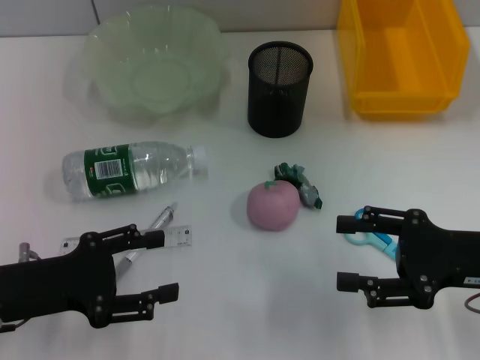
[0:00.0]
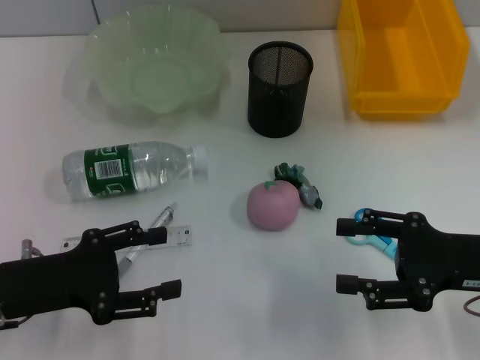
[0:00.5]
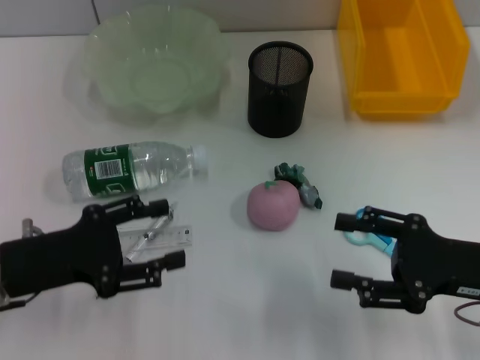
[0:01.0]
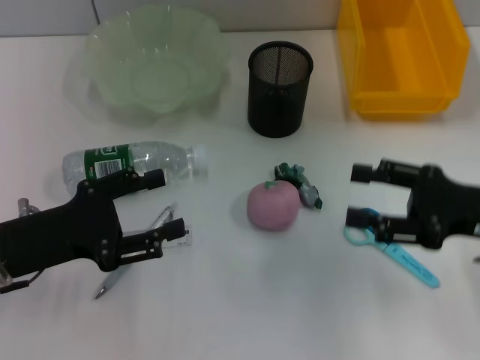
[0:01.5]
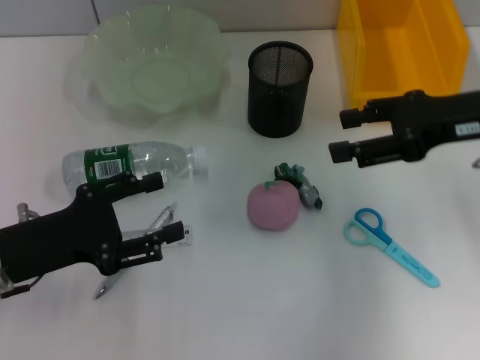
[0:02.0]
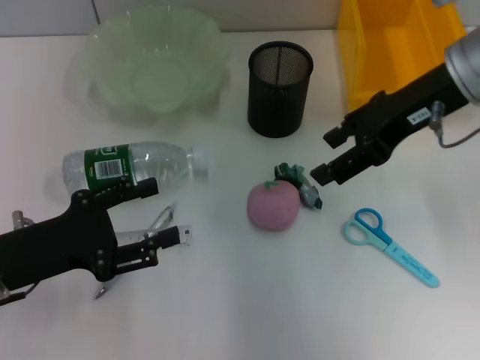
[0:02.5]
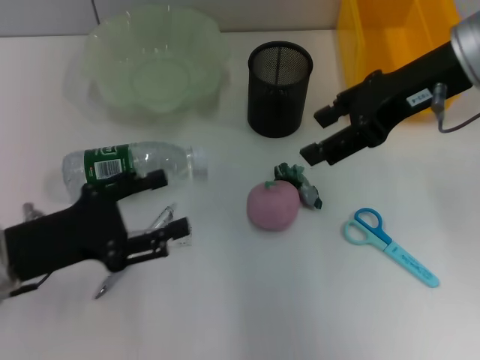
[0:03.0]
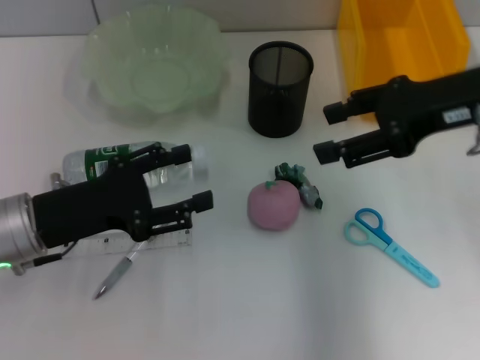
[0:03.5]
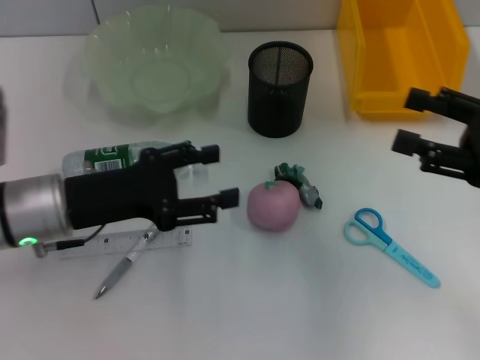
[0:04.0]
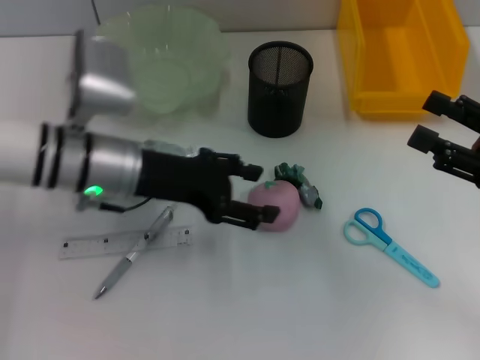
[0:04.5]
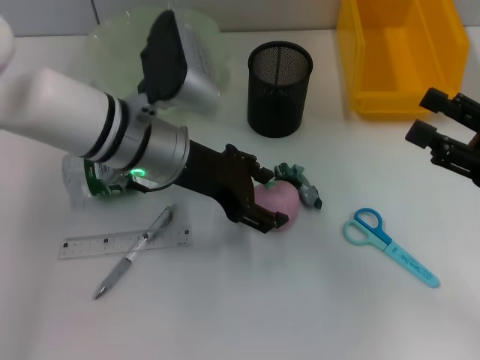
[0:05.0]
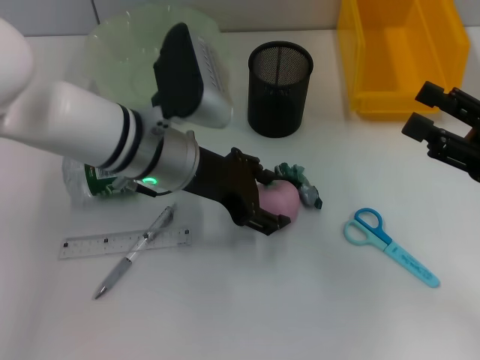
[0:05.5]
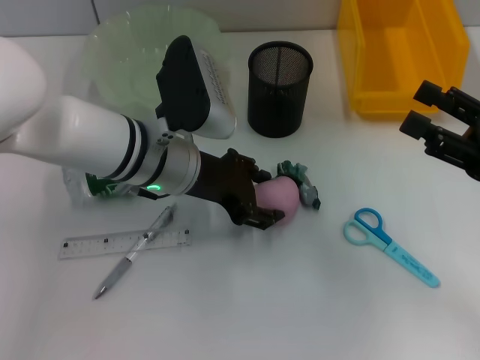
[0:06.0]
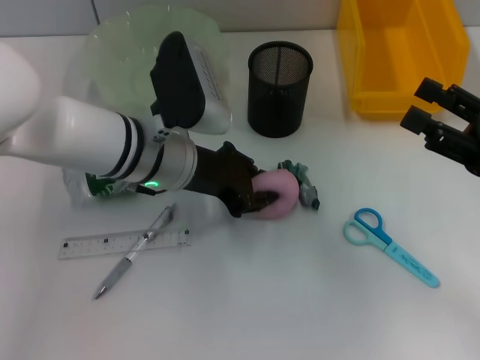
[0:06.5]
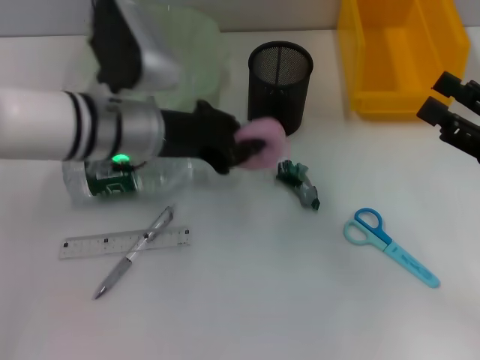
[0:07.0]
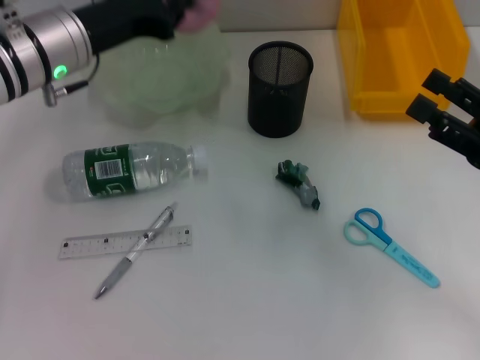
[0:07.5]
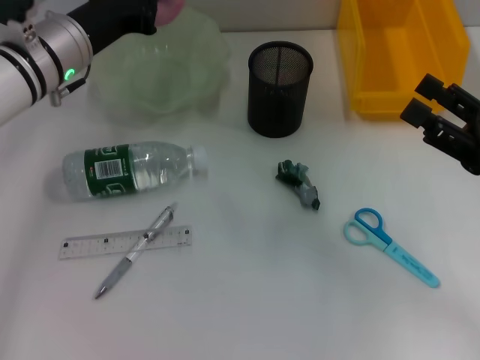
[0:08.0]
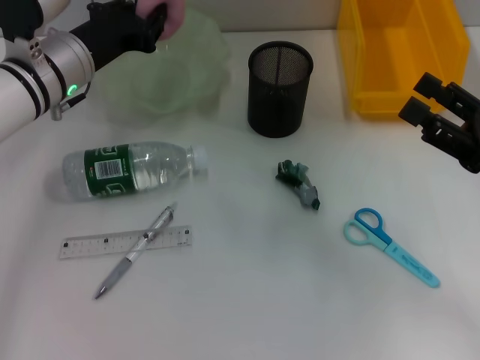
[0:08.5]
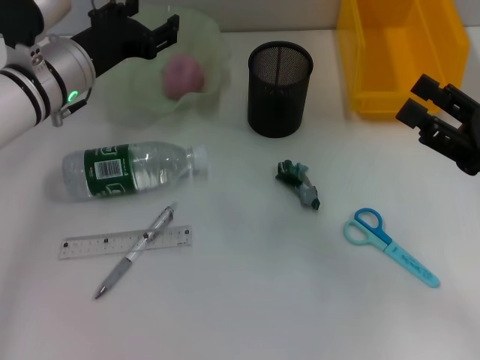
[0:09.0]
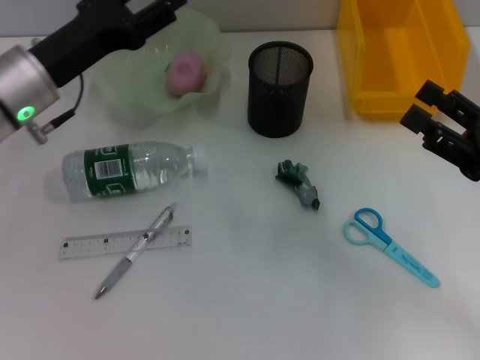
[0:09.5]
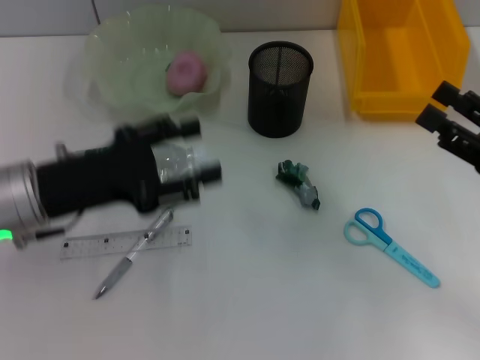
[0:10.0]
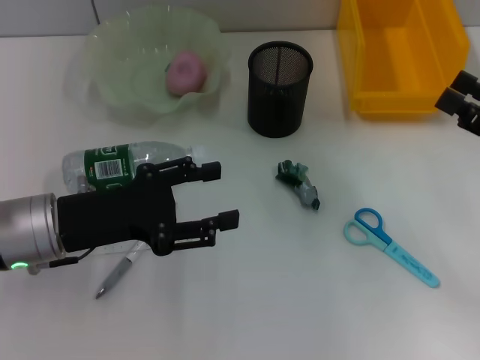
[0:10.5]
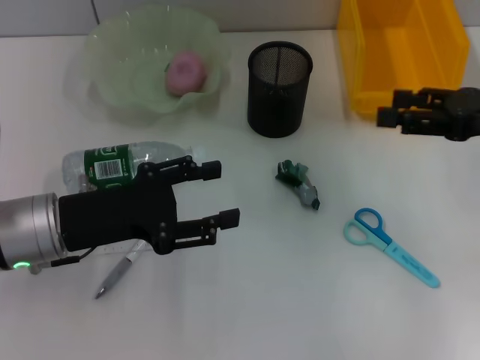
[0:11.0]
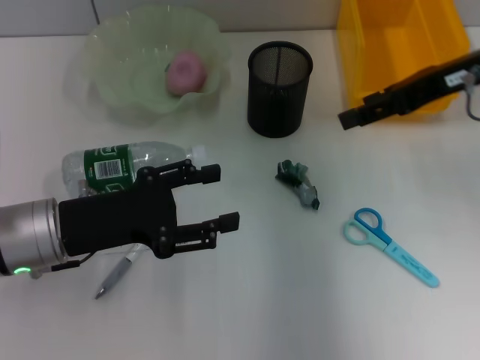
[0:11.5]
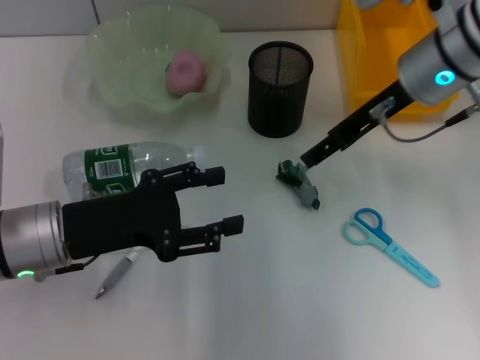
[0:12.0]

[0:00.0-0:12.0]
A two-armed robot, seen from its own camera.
Step, 0:00.0 to 0:06.0: Grab the peach with the left hand.
Step, 0:07.0 to 0:08.5: Place the peach into the fruit bowl with the left hand.
0:00.0 to 0:02.0: The right gripper goes about 15 cm upward and forward.
0:02.0 to 0:04.0: The left gripper travels forward by about 5 cm. Meanwhile the right gripper heads backward and to the right, covering roughly 10 cm.
0:04.0 to 0:06.0: The left gripper is displaced to the right and forward by about 15 cm.
0:06.0 to 0:08.0: The left gripper goes about 10 cm to the left and forward, and closes up.
0:08.0 to 0:10.0: The left gripper shifts about 15 cm backward, and opens.
0:10.0 to 0:12.0: The right gripper shifts roughly 25 cm forward, to the left and upward.

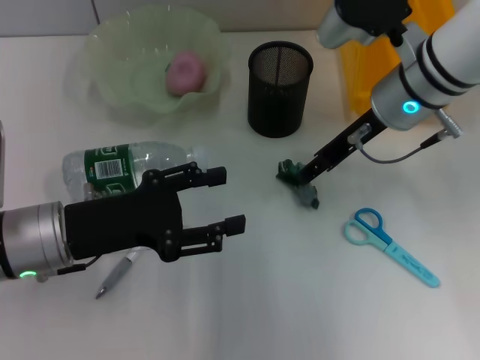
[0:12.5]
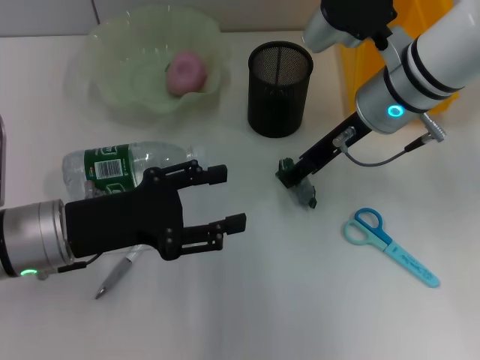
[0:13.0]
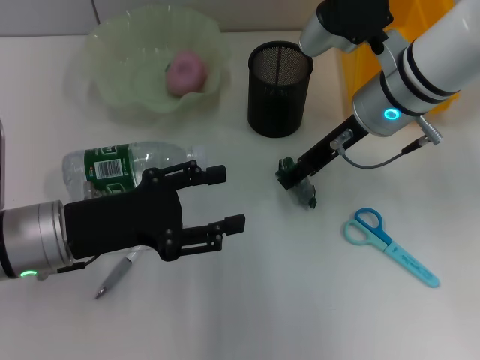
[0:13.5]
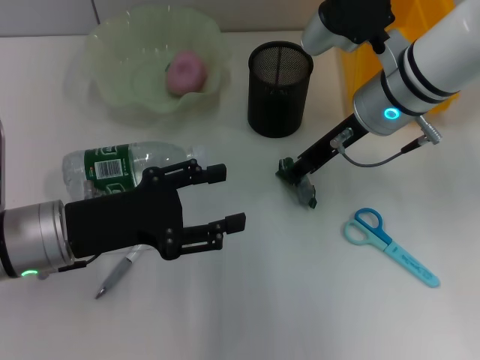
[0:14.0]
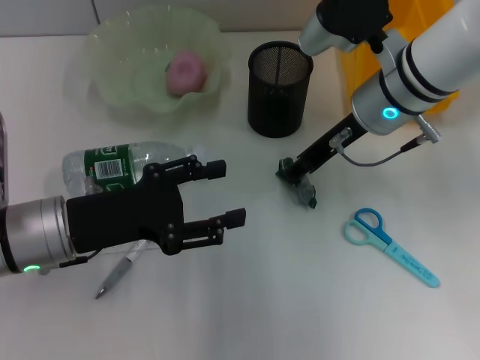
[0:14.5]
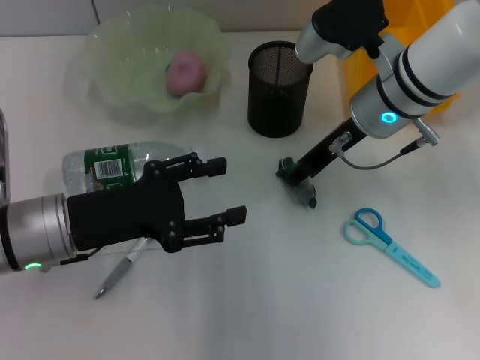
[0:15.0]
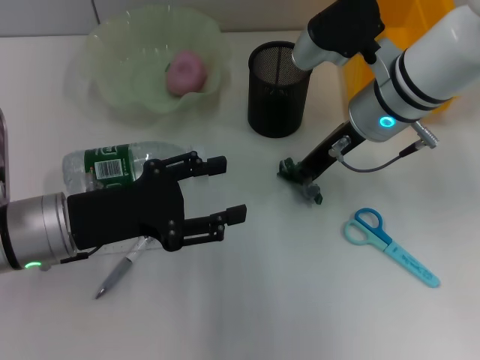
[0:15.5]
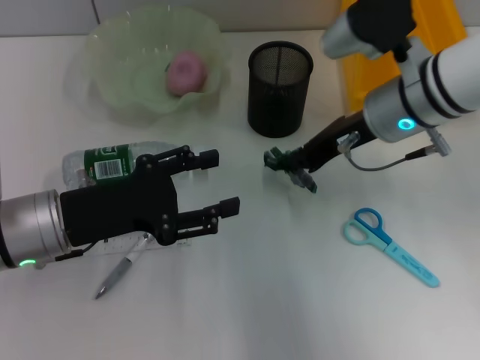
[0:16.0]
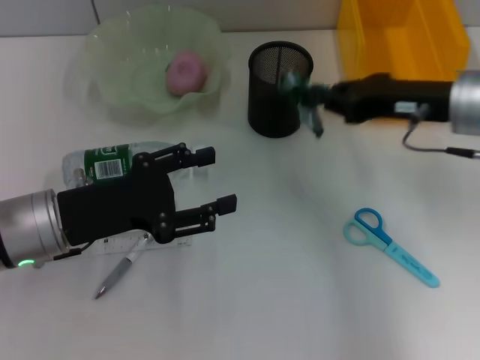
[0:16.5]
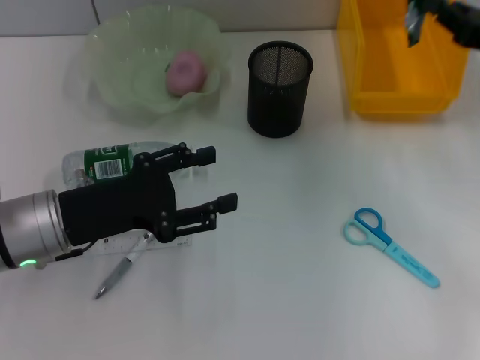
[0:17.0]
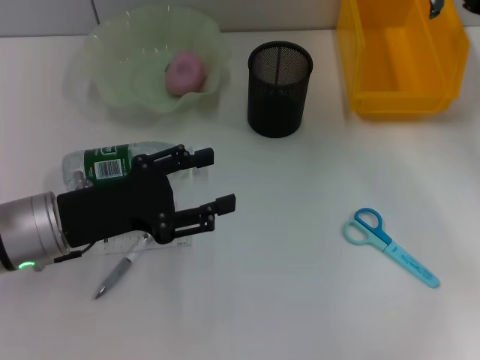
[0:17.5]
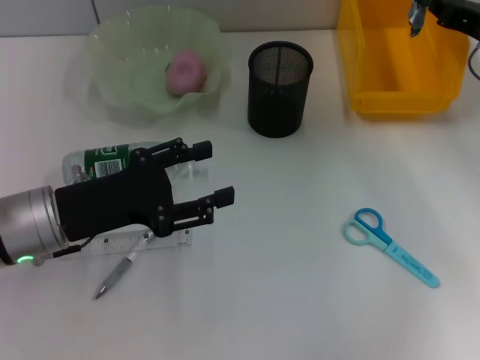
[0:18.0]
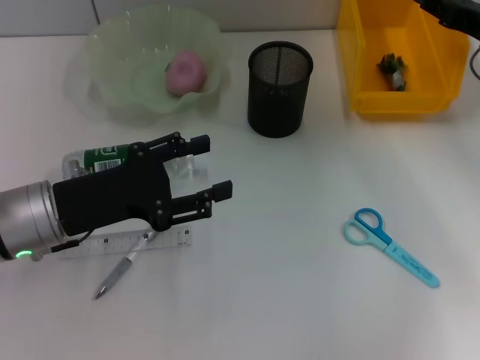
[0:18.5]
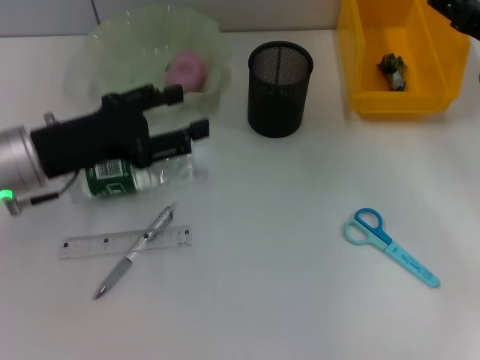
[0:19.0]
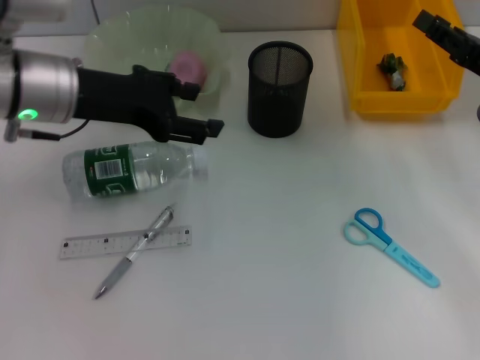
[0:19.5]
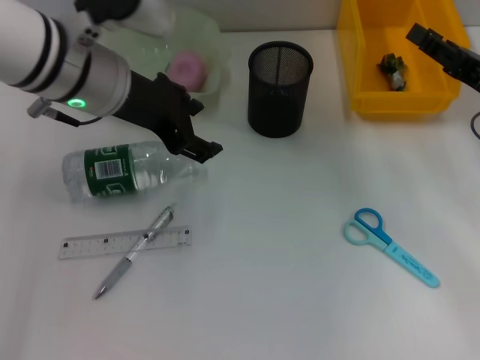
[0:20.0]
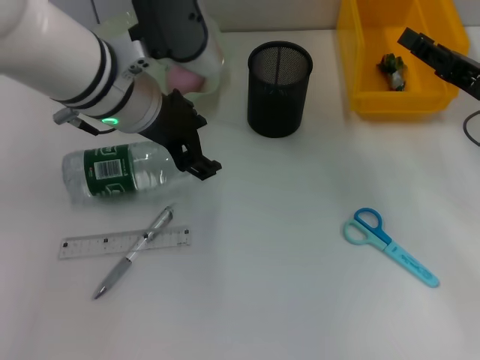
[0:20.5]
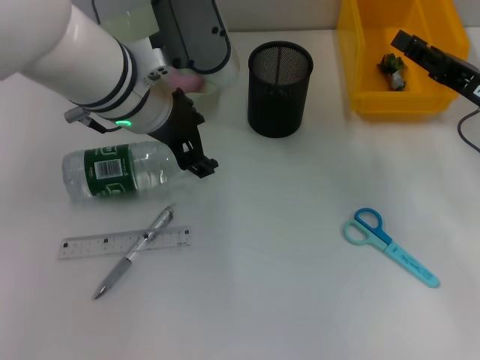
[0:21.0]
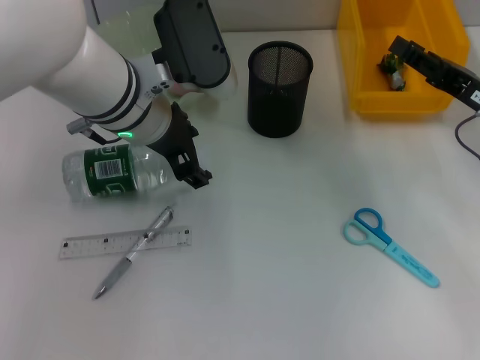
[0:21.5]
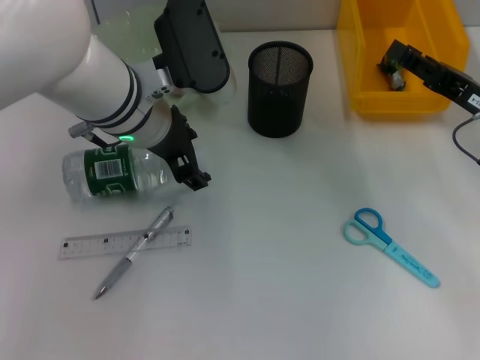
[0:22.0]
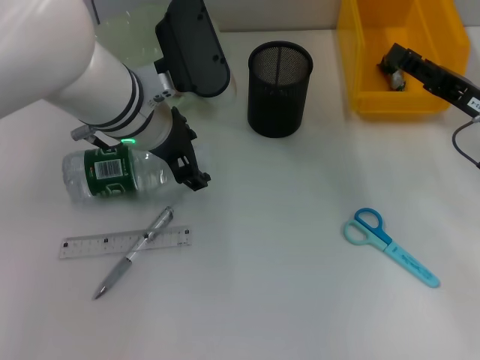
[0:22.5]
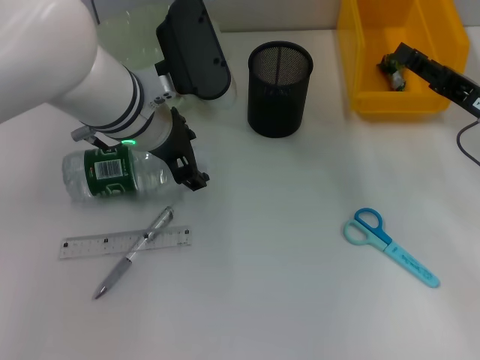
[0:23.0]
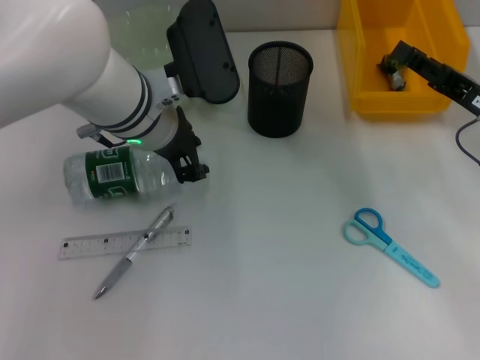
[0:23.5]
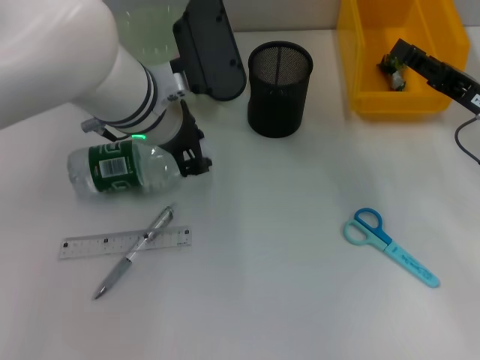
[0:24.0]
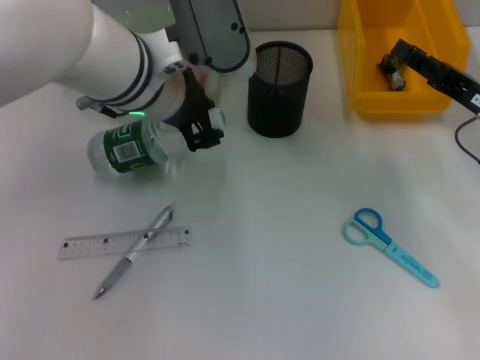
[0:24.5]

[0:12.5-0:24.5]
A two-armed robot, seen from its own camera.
Step, 0:12.5 to 0:15.5: Grab the plastic with the right hand.
Step, 0:16.0 to 0:18.0: Place the plastic into the trash can with the right hand.
Step, 0:19.0 to 0:23.5: Grab the water bottle with the left hand.
0:12.5 to 0:14.5: The grippers make only small movements.
0:14.5 to 0:16.5: The right gripper is displaced to the right and backward by approximately 10 cm, and closes up.
0:16.5 to 0:18.5: The right gripper heads to the right, covering about 10 cm, and opens its fingers.
0:18.5 to 0:20.5: The left gripper shifts about 15 cm to the right, upward and forward. Meanwhile the right gripper heads backward, covering roughly 5 cm.
0:20.5 to 0:22.5: There are only small adjustments of the grippers.
0:22.5 to 0:24.5: The left gripper closes its fingers.

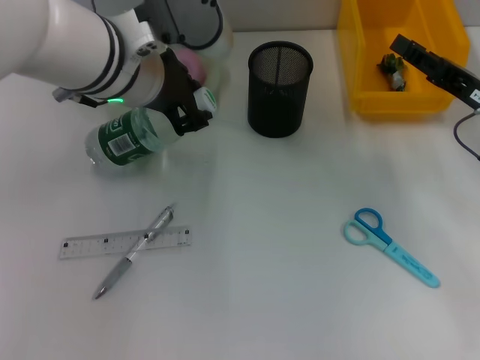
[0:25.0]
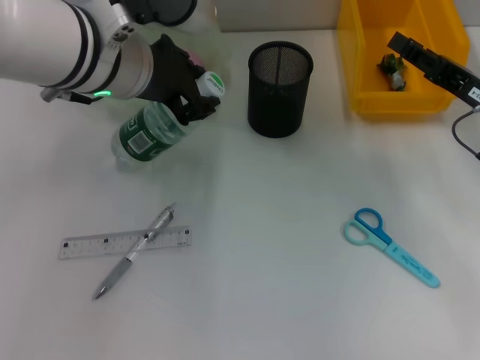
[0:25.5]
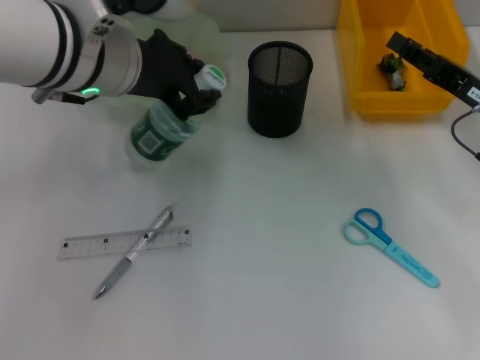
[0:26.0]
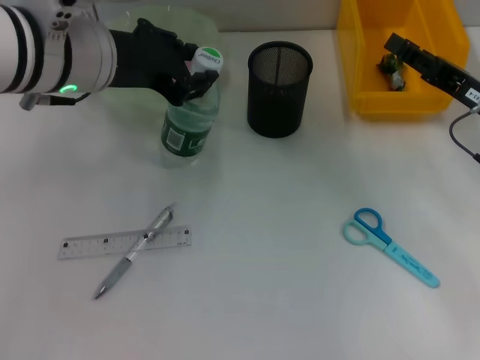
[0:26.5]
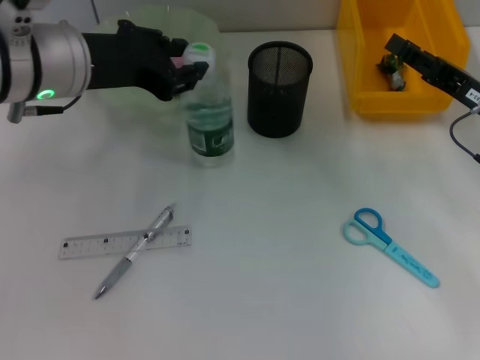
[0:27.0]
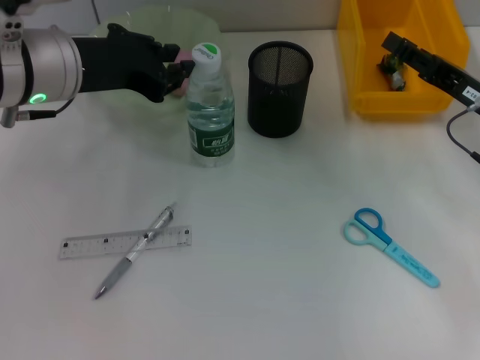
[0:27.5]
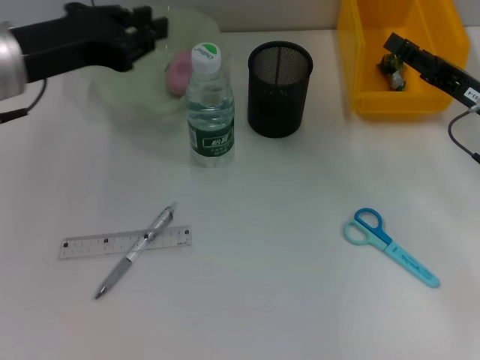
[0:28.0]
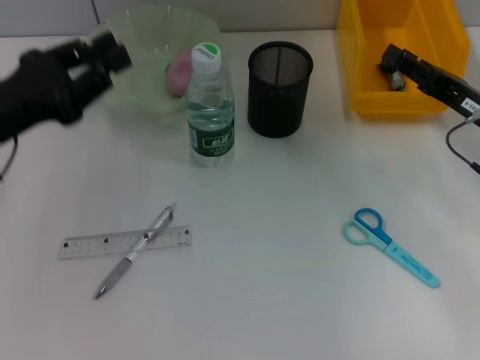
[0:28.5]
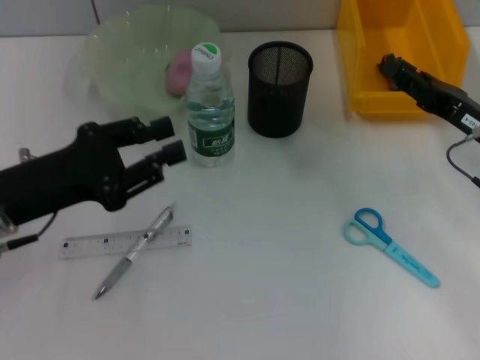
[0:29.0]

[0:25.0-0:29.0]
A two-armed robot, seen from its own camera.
Step, 0:25.0 to 0:27.5: Place the water bottle on the table with the left hand.
0:25.0 to 0:27.0: The left gripper travels to the left by approximately 5 cm.
0:27.0 to 0:29.0: The left gripper shifts about 15 cm downward, backward and to the left.
